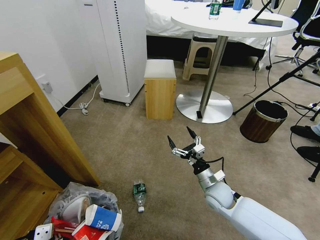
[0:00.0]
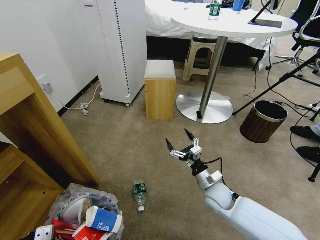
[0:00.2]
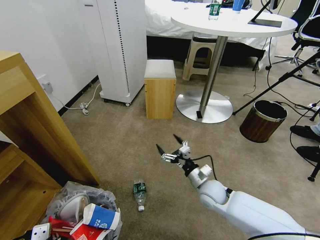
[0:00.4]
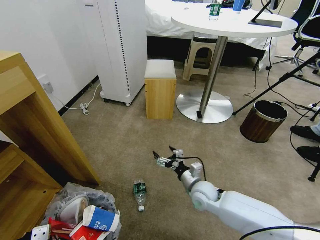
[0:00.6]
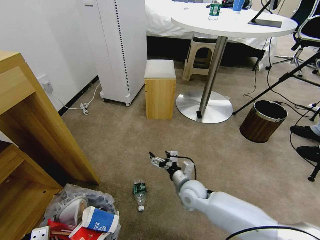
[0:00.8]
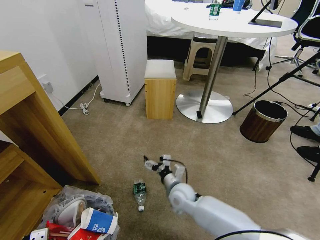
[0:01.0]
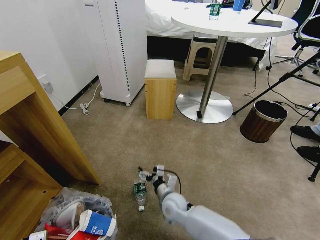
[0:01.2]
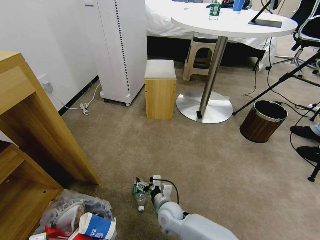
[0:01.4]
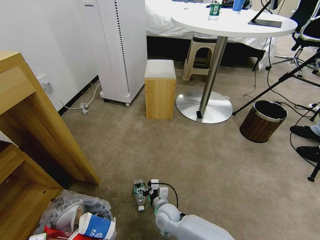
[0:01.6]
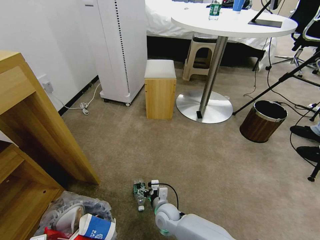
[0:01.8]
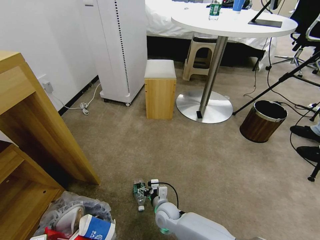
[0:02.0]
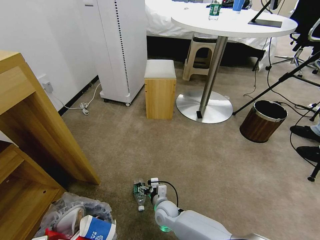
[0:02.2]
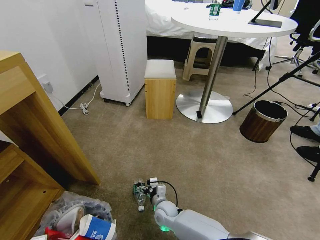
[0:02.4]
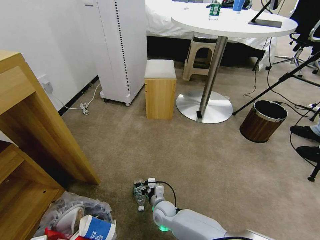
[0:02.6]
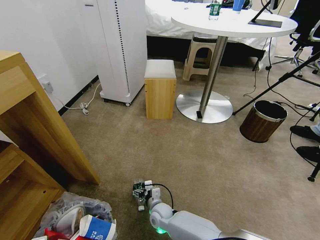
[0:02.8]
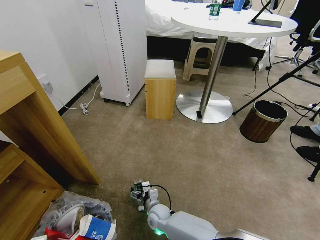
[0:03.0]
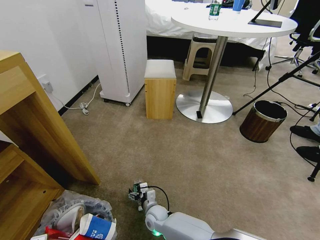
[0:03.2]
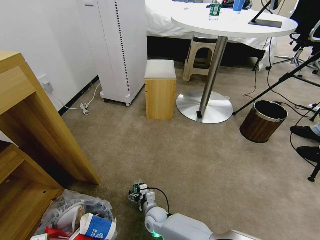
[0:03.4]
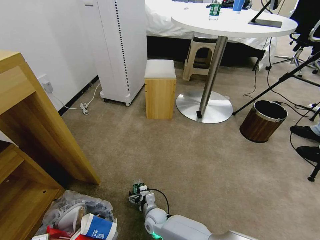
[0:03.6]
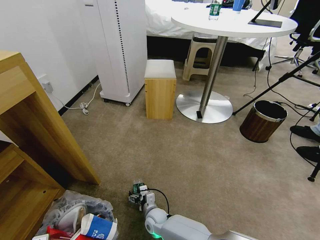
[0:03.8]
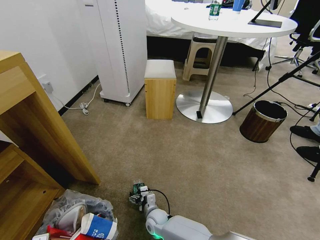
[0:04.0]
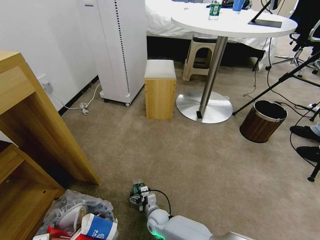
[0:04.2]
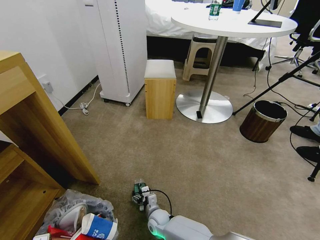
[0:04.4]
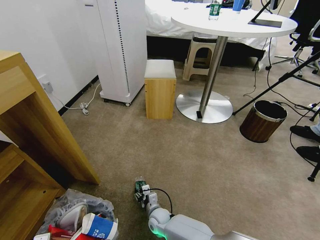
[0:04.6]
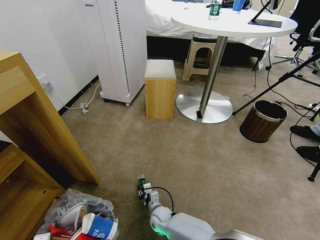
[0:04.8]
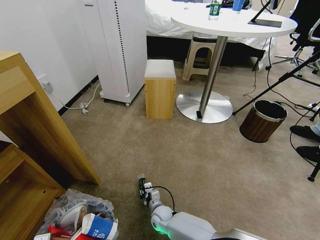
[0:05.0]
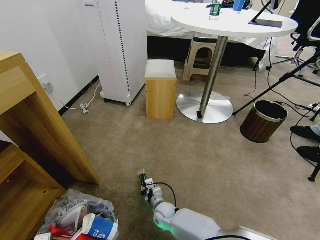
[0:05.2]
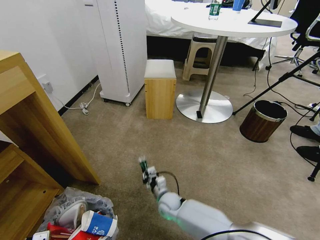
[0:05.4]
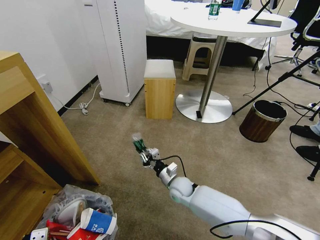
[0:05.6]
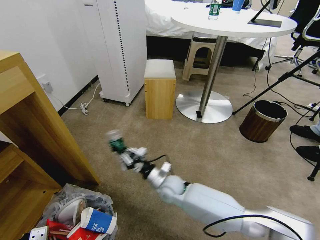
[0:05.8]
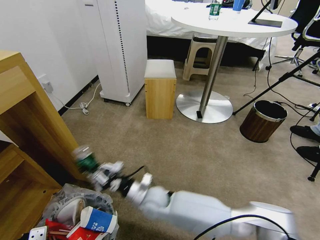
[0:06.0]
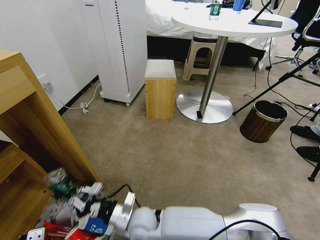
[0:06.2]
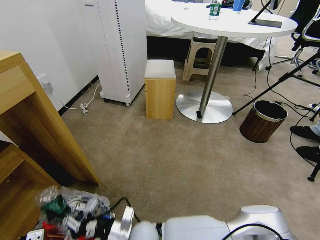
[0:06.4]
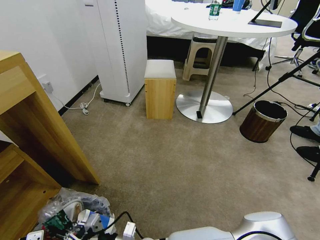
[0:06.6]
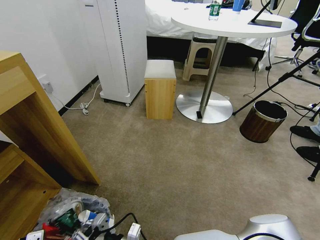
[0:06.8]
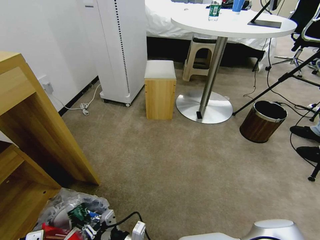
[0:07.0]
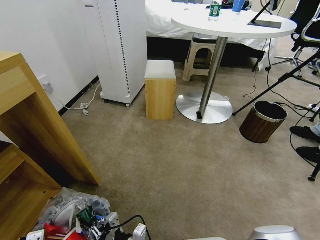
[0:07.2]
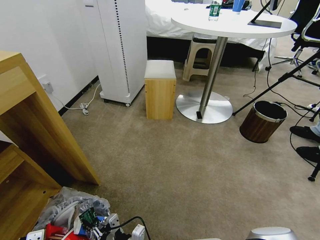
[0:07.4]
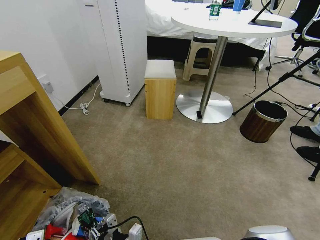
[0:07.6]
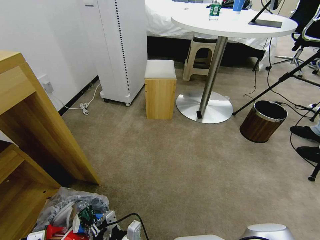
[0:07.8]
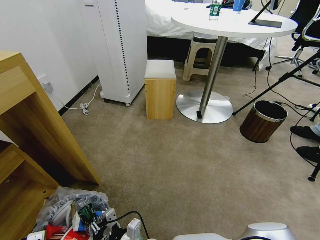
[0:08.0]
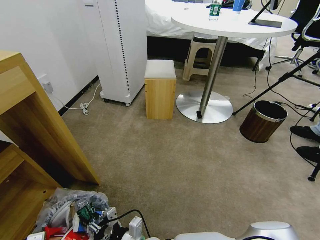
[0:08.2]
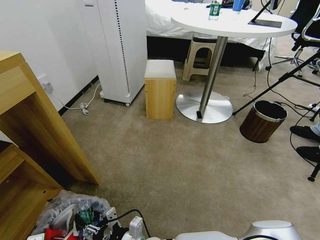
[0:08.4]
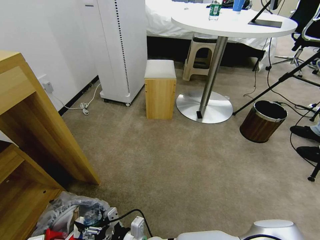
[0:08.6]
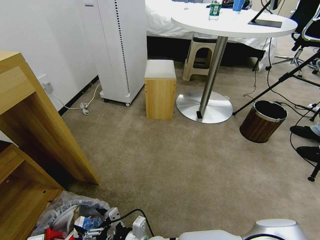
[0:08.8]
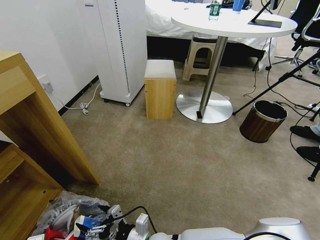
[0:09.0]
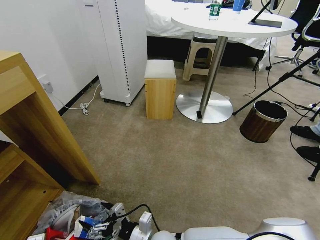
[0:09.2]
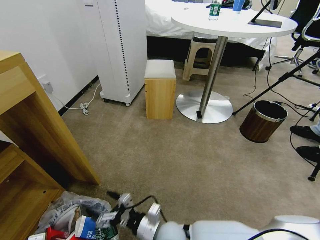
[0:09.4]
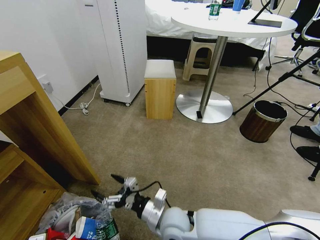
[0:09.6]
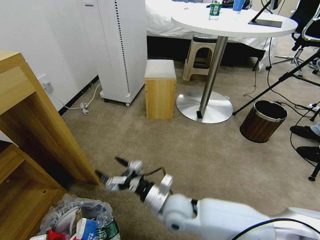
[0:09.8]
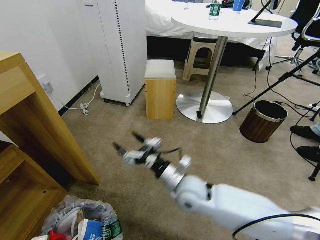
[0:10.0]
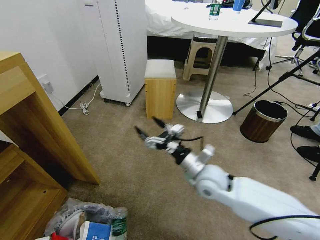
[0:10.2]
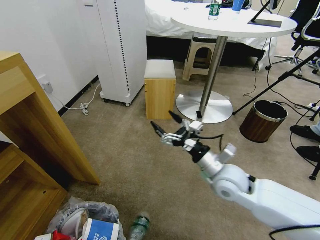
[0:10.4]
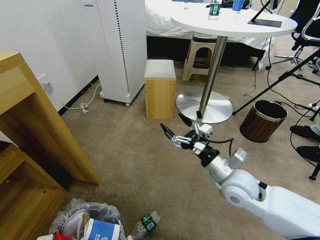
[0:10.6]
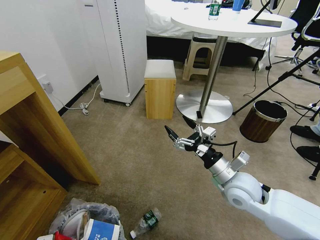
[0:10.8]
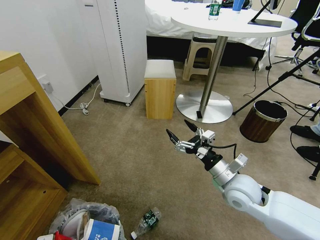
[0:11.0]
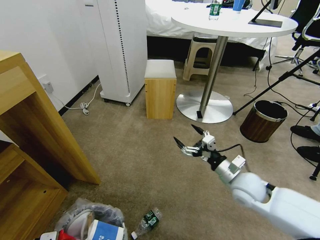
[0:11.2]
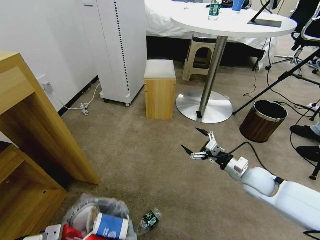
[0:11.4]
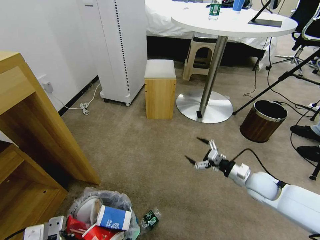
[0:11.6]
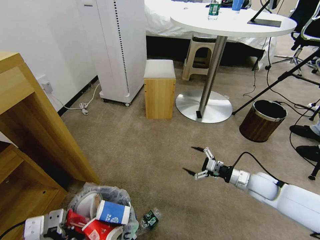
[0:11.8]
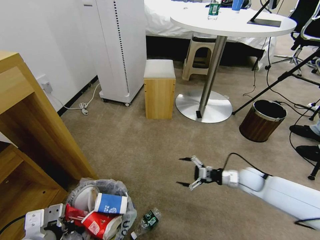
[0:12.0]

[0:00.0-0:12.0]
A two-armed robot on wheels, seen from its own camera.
Task of the whole recording: Pick up the trash bin and place the garbage on the floor into it.
0:00.0 to 0:01.6: The right gripper goes approximately 20 cm to the left and downward.
0:01.6 to 0:03.0: The right gripper is displaced downward by some 5 cm.
0:03.0 to 0:04.4: The grippers make only small movements.
0:04.4 to 0:06.0: The right gripper shifts roughly 20 cm upward, and closes its fingers.
0:06.0 to 0:07.6: The right gripper goes roughly 15 cm backward.
0:07.6 to 0:09.0: The right gripper opens up.
0:09.0 to 0:10.4: The right gripper goes about 30 cm to the right, upward and forward.
0:10.4 to 0:12.0: The right gripper moves to the right, downward and forward, roughly 20 cm, while the left gripper goes about 10 cm forward.

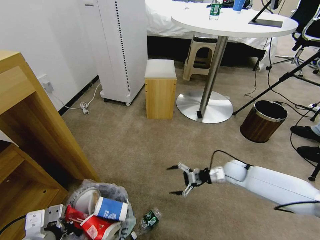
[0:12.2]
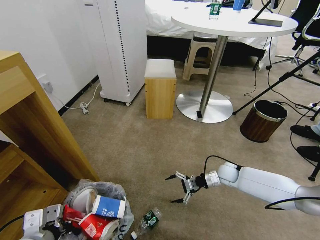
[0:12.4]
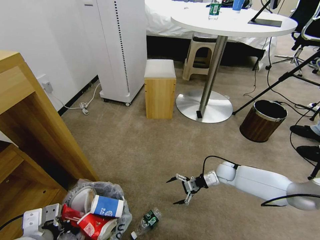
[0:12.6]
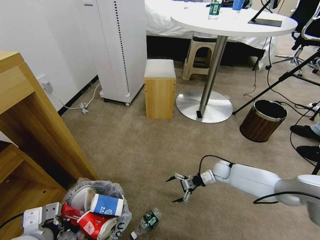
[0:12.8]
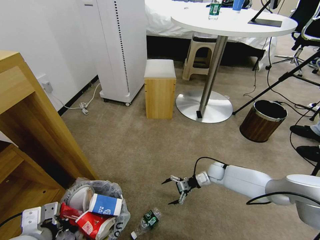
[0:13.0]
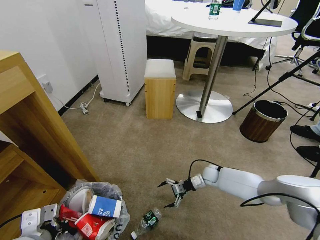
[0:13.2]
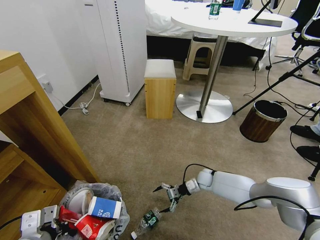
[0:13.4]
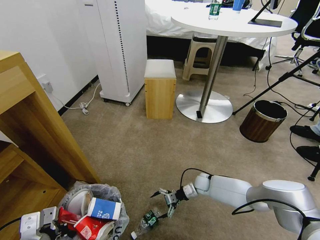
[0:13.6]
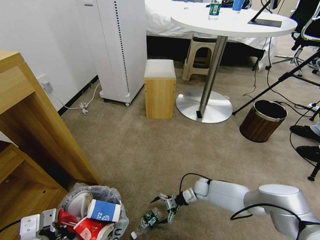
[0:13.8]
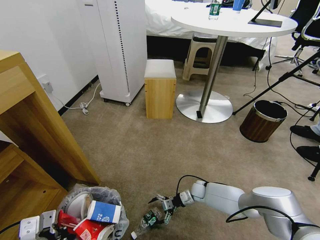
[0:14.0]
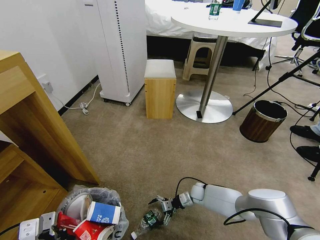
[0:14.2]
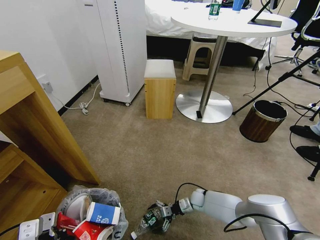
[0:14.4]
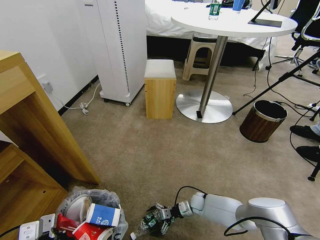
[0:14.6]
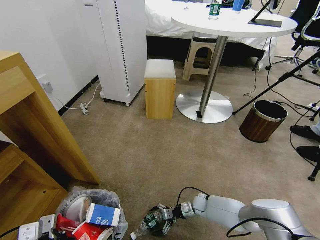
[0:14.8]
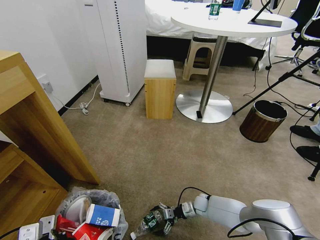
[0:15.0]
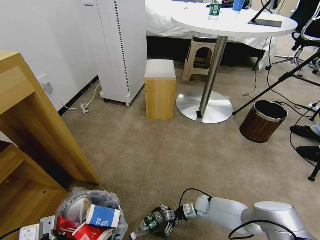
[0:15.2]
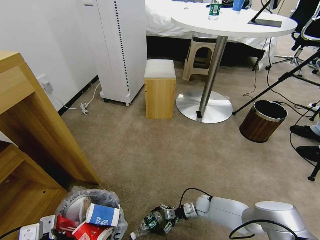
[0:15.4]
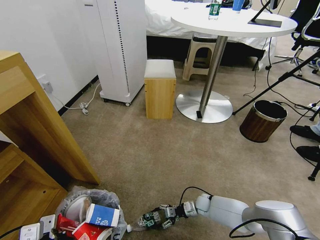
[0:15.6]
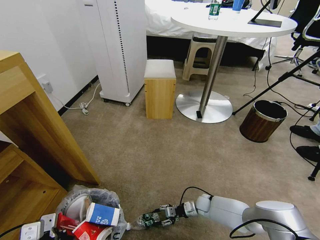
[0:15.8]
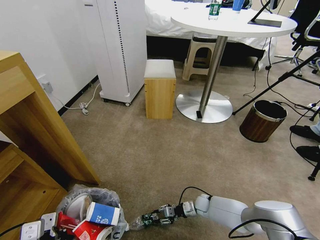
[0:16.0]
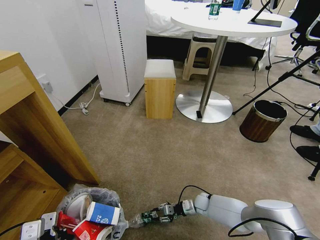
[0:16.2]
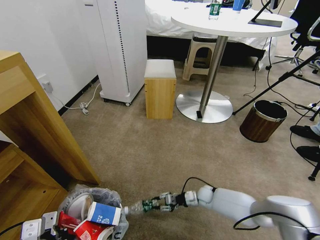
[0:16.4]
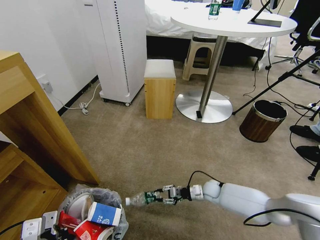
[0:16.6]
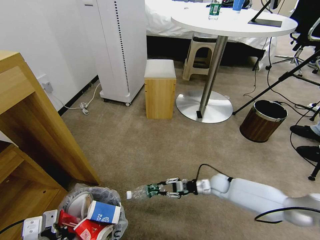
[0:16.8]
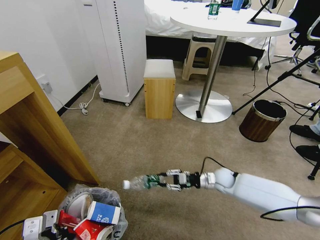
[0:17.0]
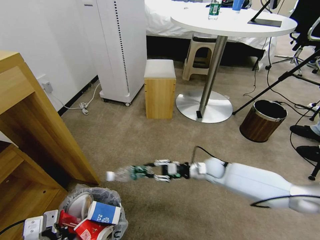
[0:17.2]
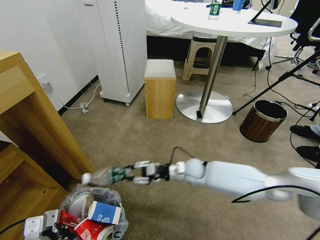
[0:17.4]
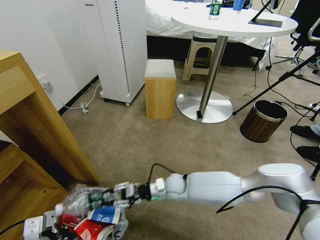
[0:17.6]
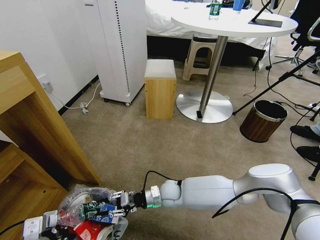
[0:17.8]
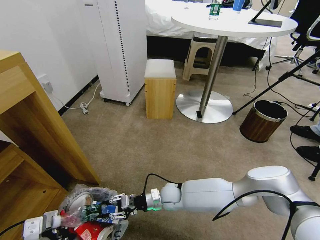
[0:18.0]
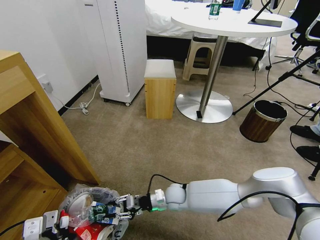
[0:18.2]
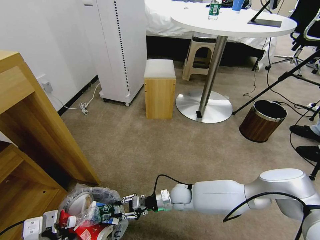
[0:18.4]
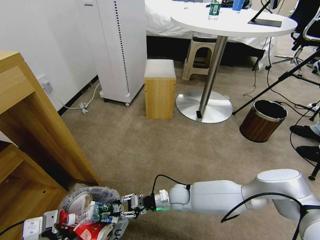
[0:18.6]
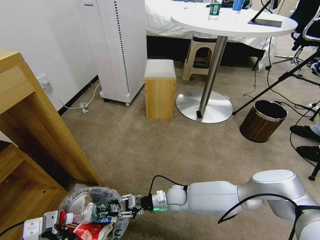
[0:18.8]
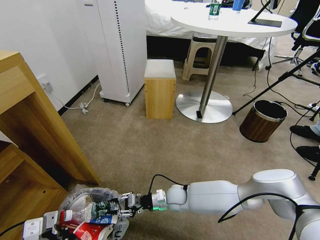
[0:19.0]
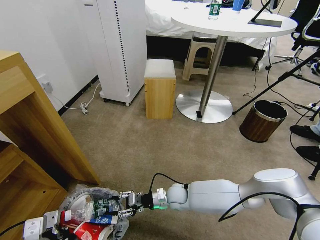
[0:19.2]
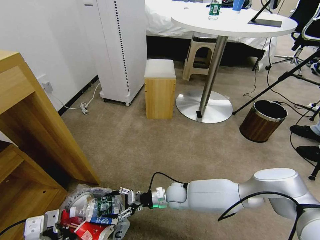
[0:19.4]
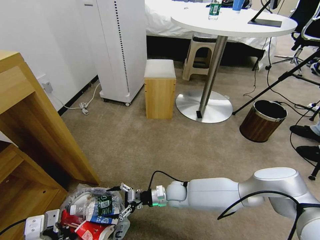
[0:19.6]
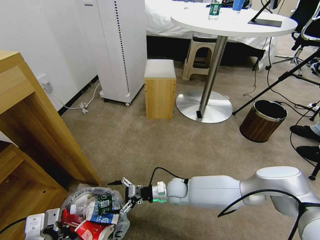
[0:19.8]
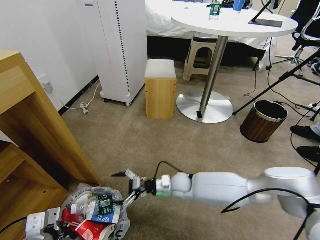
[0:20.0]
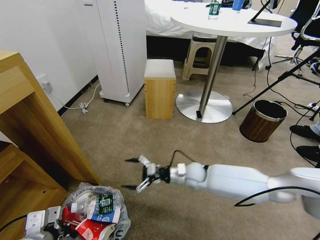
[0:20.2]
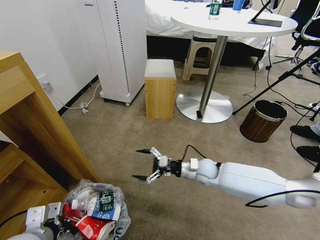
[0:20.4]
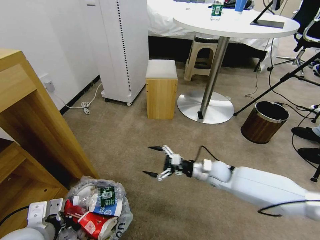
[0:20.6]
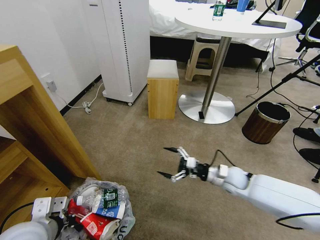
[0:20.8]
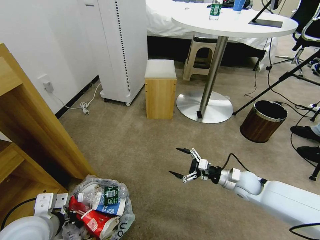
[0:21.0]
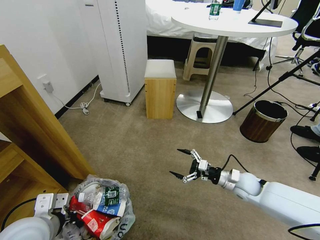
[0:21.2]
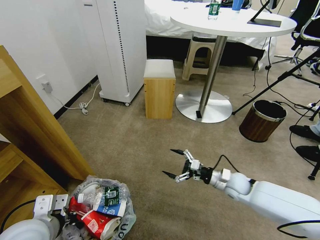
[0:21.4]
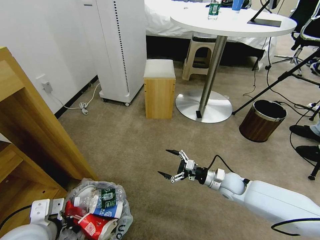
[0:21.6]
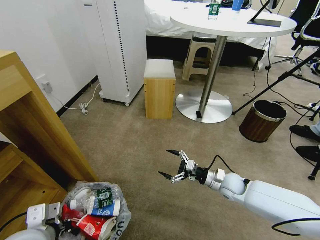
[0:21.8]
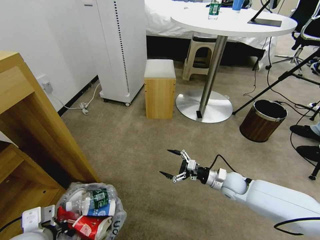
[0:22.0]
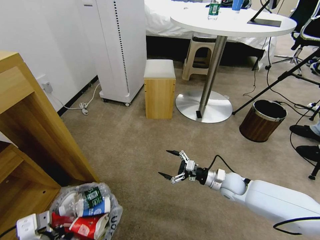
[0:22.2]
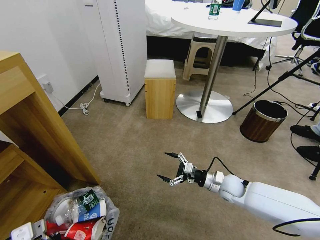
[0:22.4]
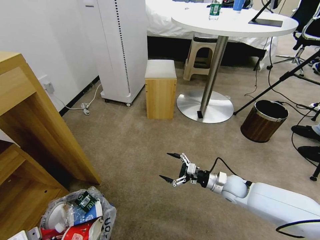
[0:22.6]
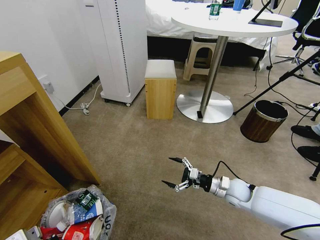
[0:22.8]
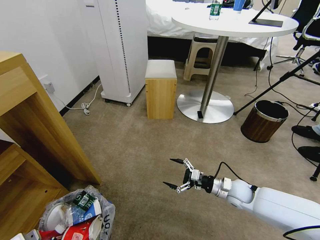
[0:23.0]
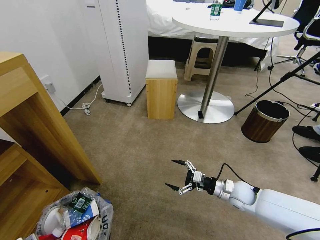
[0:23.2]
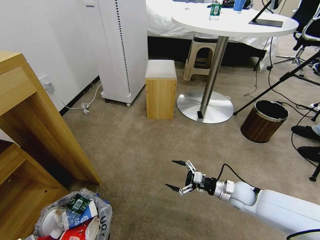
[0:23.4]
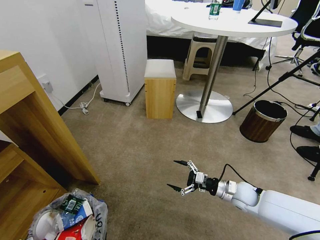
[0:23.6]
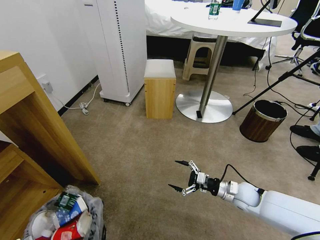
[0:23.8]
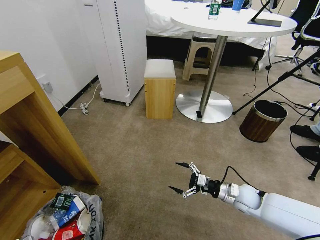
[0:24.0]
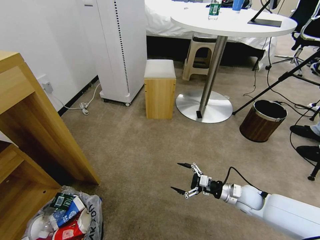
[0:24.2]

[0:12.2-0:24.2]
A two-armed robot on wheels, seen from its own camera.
Task of the whole recording: Pick up the trash bin and place the garbage on the floor into it.
0:12.2 to 0:13.8: The right gripper heads downward and to the left, covering approximately 20 cm.
0:13.8 to 0:15.2: The right gripper moves backward and downward, some 10 cm.
0:15.2 to 0:16.6: The right gripper shifts roughly 10 cm upward, and closes up.
0:16.6 to 0:18.2: The right gripper moves to the left, some 20 cm.
0:18.2 to 0:19.8: The right gripper opens up.
0:19.8 to 0:21.2: The left gripper shifts by roughly 5 cm; the right gripper shifts approximately 25 cm to the right.
0:21.2 to 0:22.6: The left gripper heads backward and downward, covering roughly 10 cm.
0:22.6 to 0:24.2: The left gripper opens up; the right gripper changes place by roughly 5 cm.
